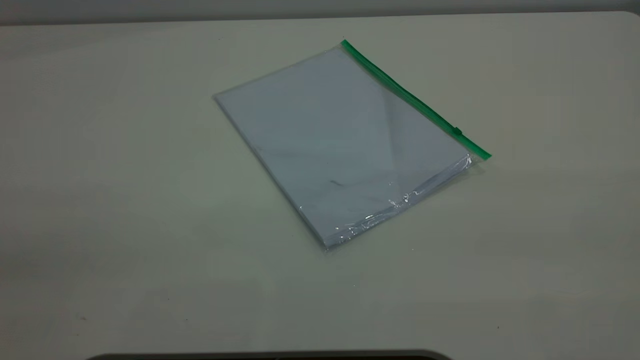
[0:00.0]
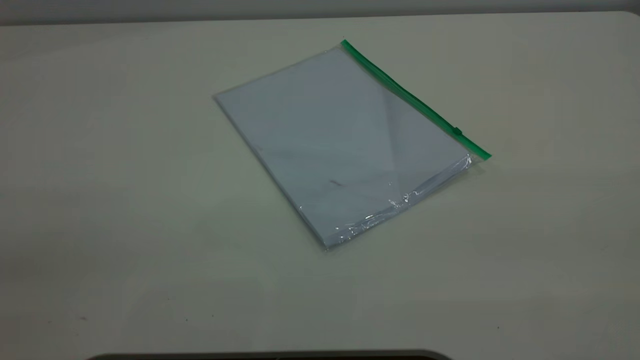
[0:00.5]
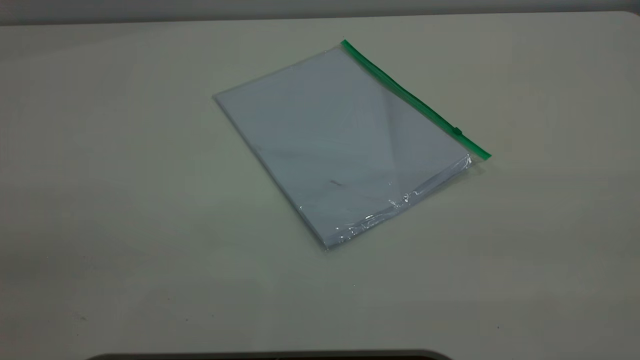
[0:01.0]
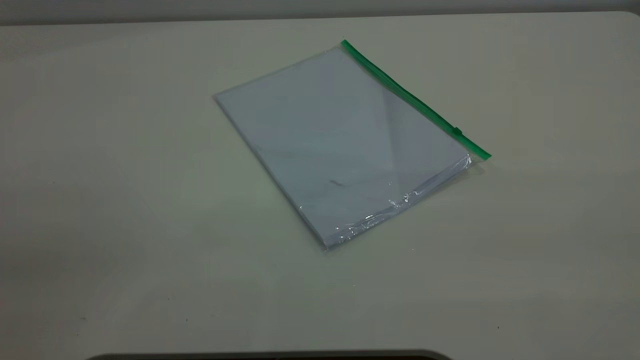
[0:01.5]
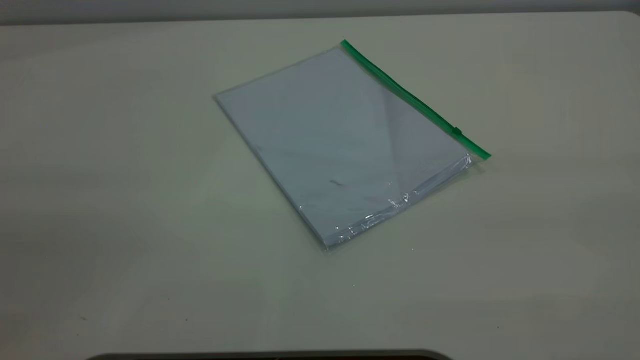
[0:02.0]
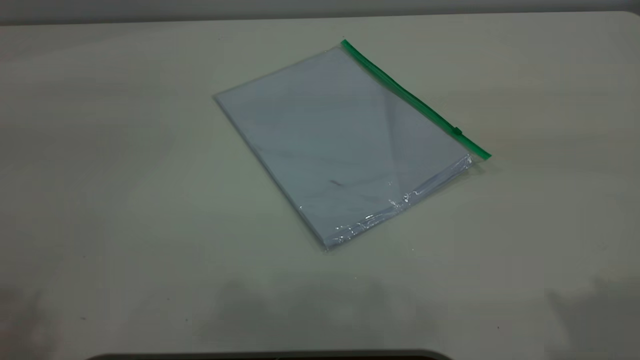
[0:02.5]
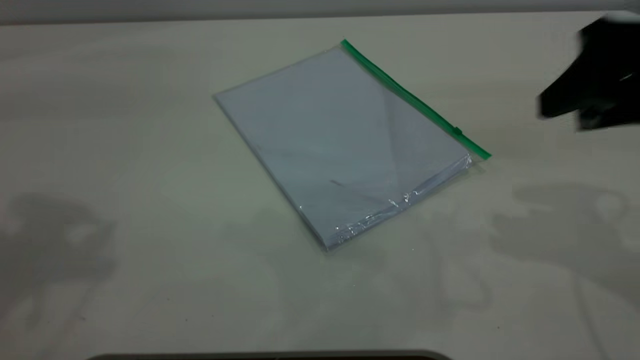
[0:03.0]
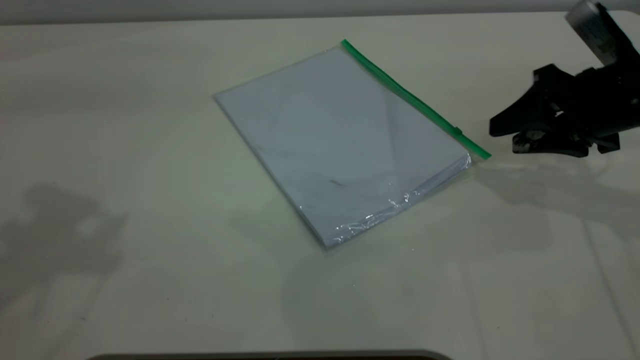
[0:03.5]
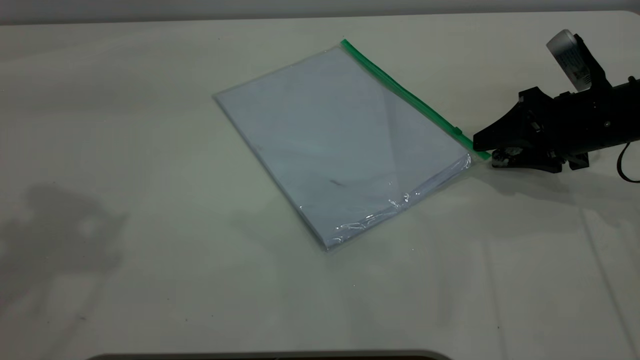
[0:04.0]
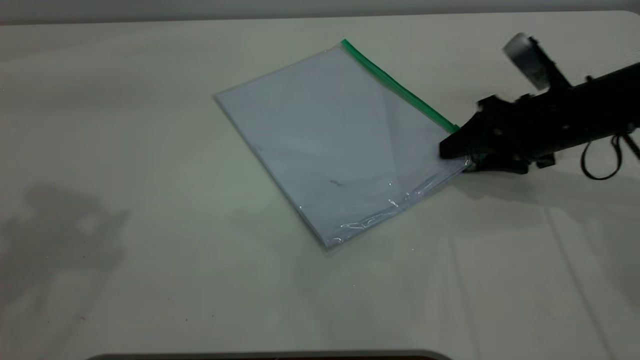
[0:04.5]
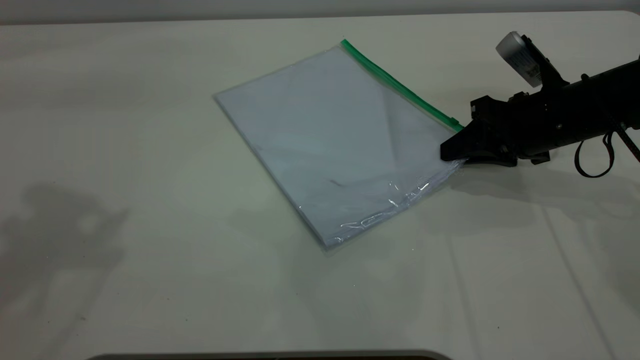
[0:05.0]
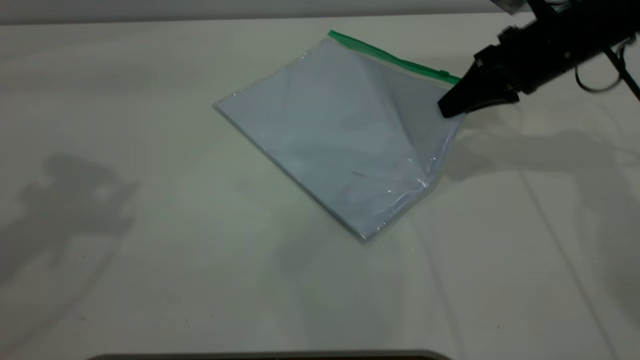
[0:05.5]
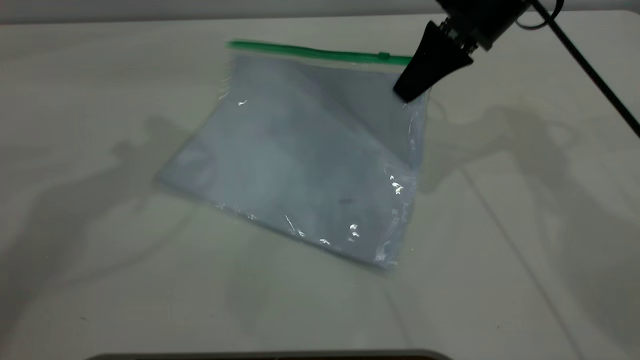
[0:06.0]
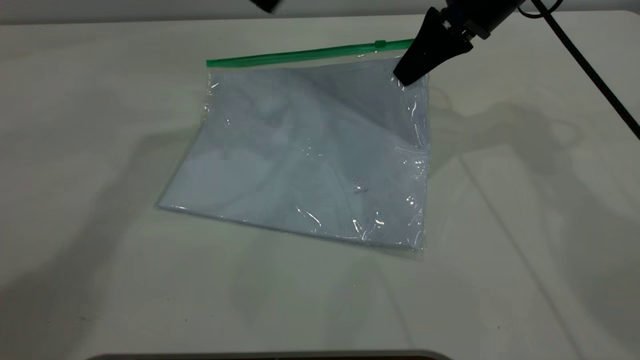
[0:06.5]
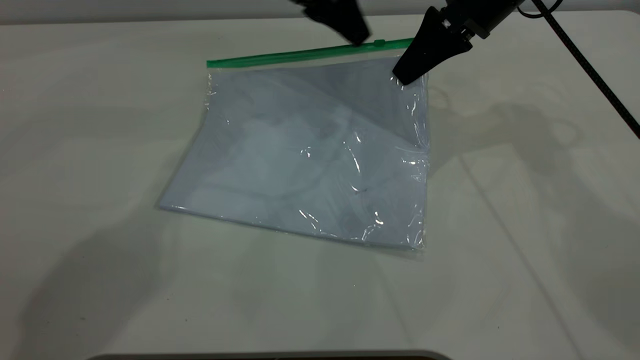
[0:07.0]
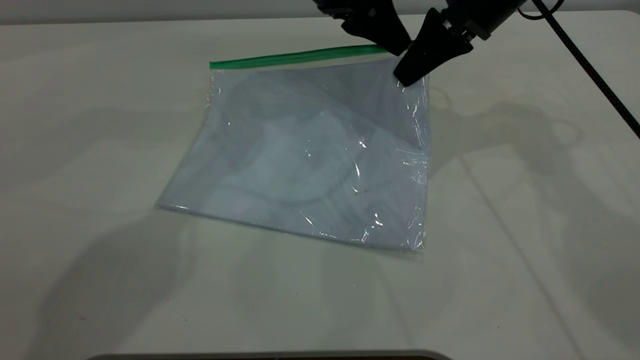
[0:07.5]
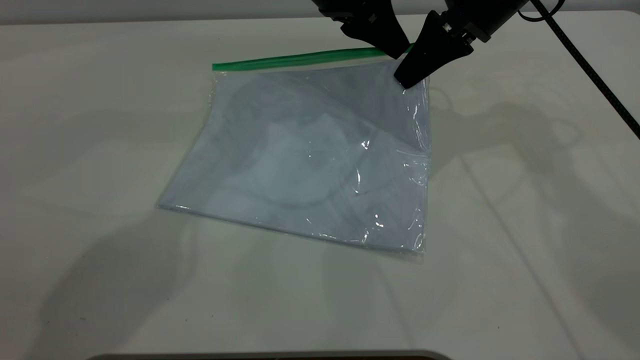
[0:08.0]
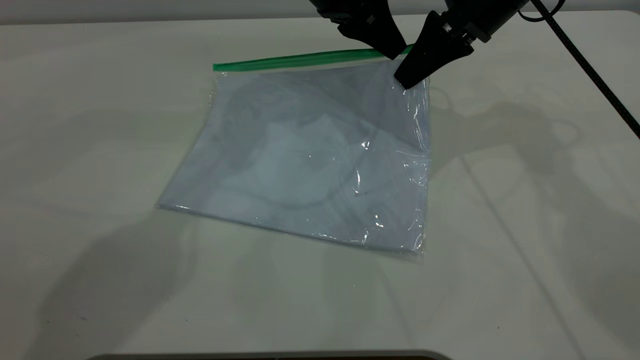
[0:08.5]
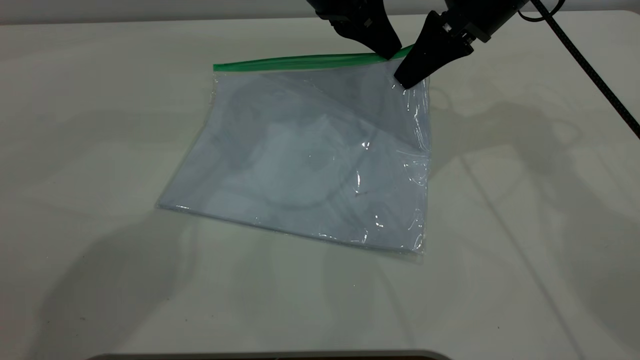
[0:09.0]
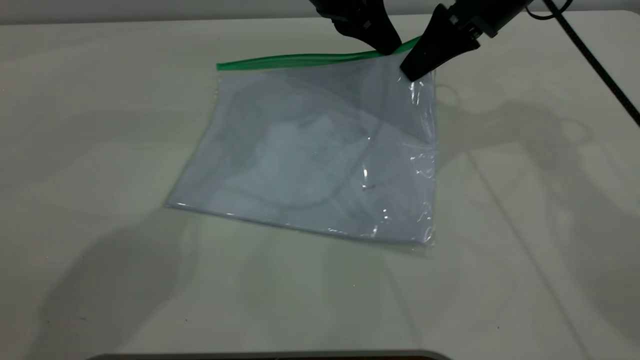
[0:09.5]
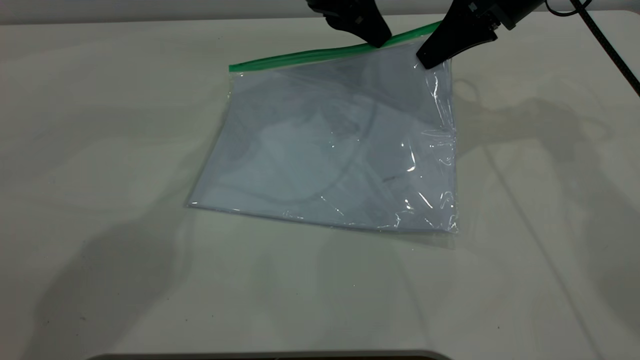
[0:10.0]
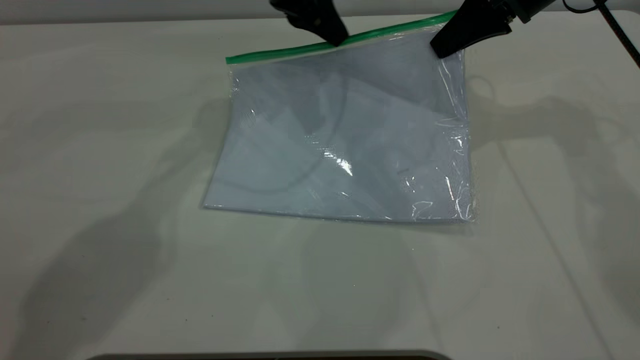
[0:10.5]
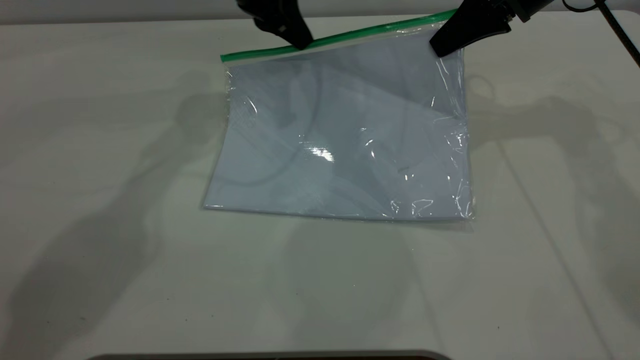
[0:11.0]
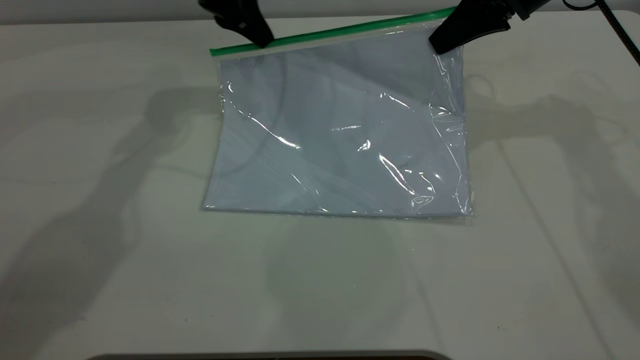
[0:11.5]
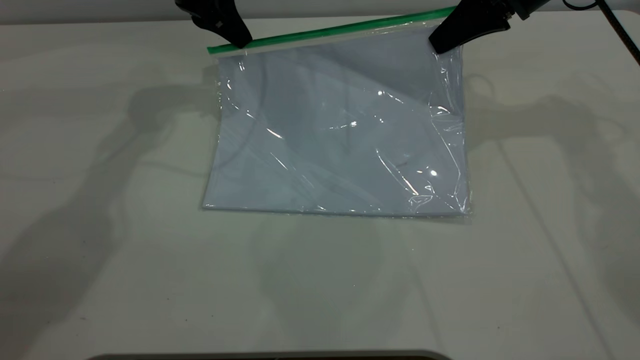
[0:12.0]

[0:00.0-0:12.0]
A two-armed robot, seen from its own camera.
Step, 0:00.0 to 0:06.0: Pick up the transparent plastic bag with the right gripper.
0:02.0 to 0:04.0: The right gripper goes some 50 cm forward and downward.
0:04.0 to 0:06.0: The right gripper travels to the left, upward and forward by roughly 20 cm, and closes up. The left gripper shifts roughly 15 cm forward and to the right.
0:06.0 to 0:08.0: The left gripper heads to the right, downward and forward, covering some 25 cm.
0:08.0 to 0:10.0: The left gripper closes up.
0:10.0 to 0:12.0: The left gripper is displaced to the left by approximately 15 cm.

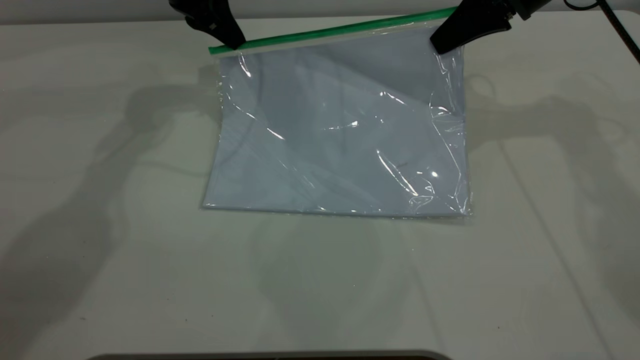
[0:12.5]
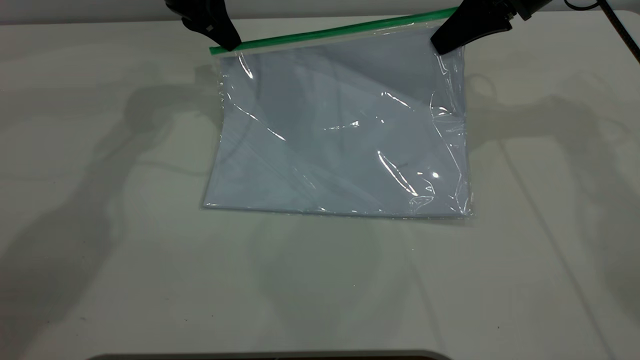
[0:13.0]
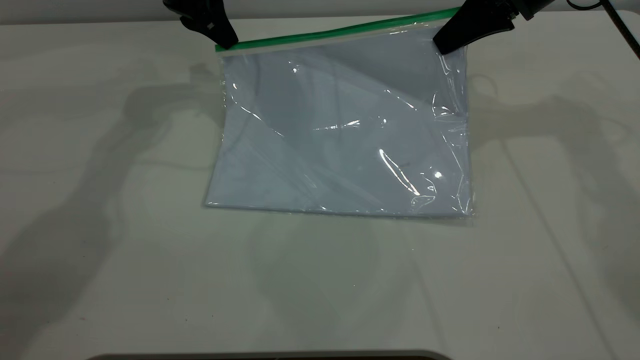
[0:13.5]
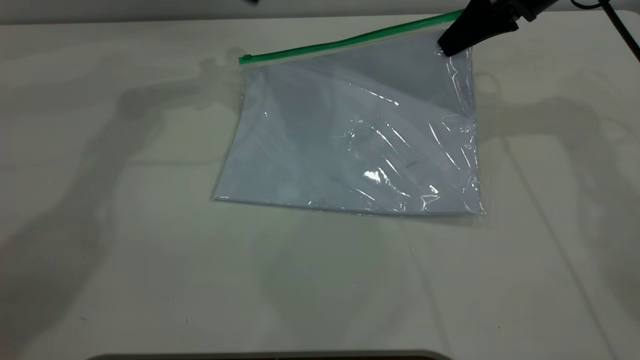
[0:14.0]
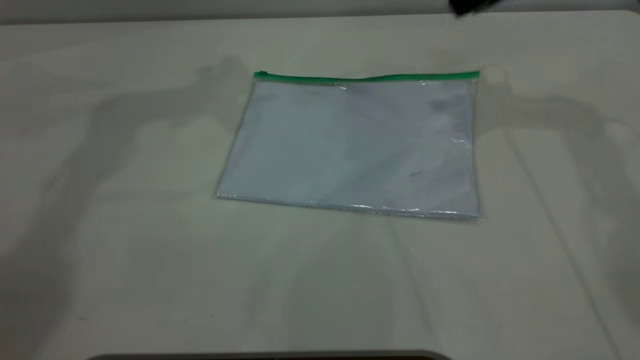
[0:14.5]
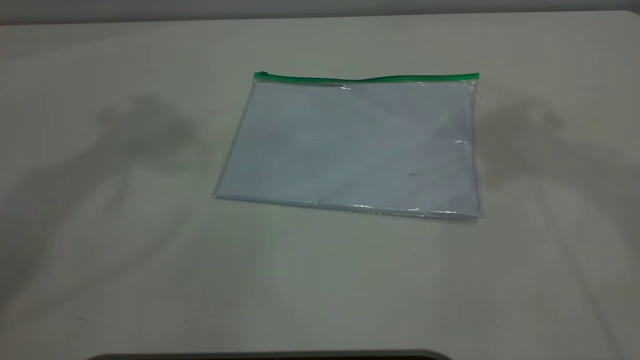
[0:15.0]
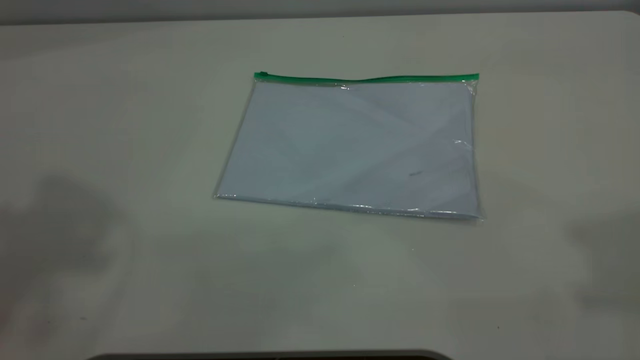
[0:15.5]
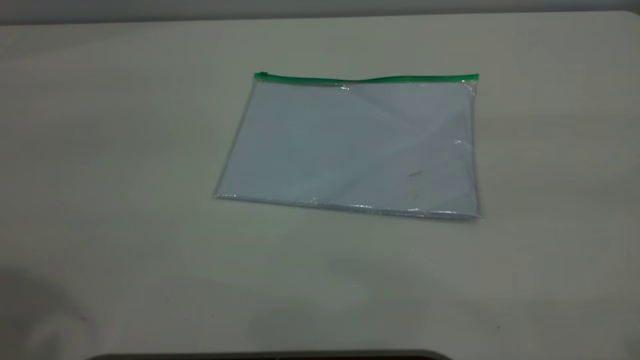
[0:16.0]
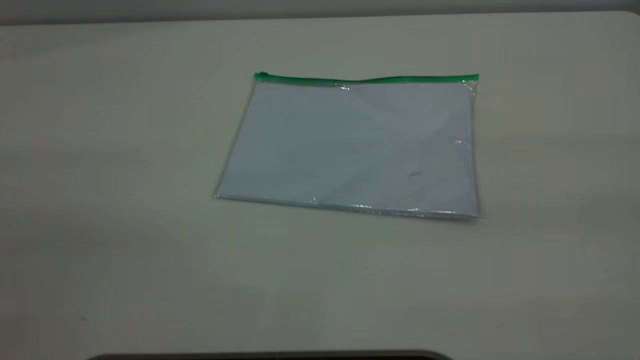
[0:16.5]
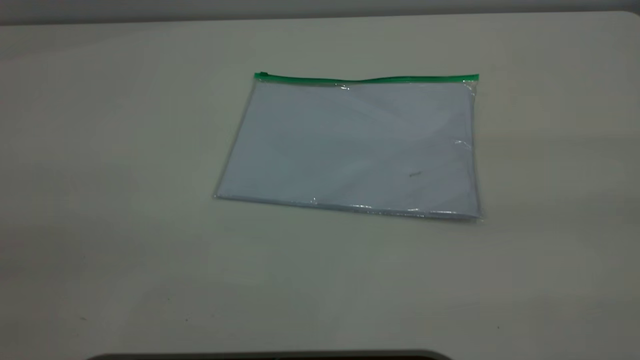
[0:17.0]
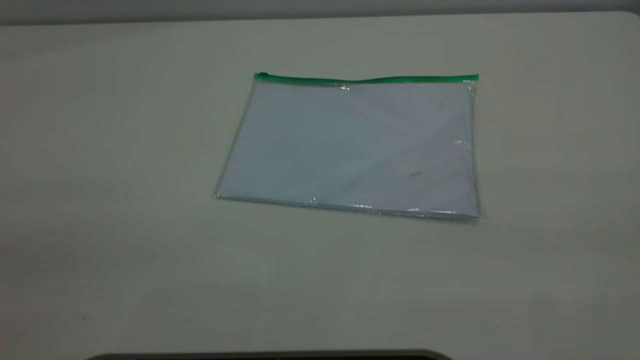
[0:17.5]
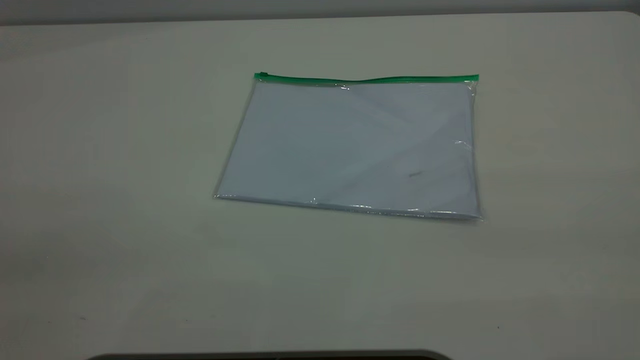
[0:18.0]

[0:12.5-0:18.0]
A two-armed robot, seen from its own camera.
0:12.5 to 0:14.5: The right gripper is displaced upward by roughly 5 cm, and opens; the left gripper shifts some 20 cm upward, and opens.
